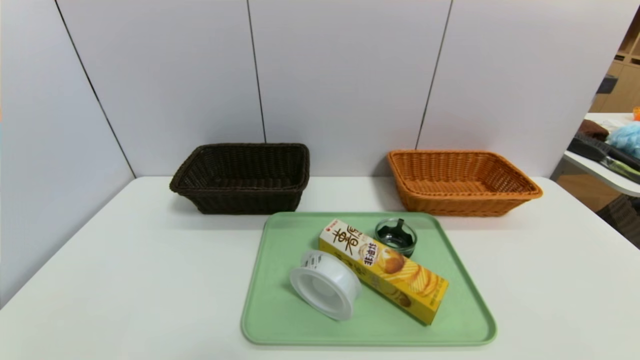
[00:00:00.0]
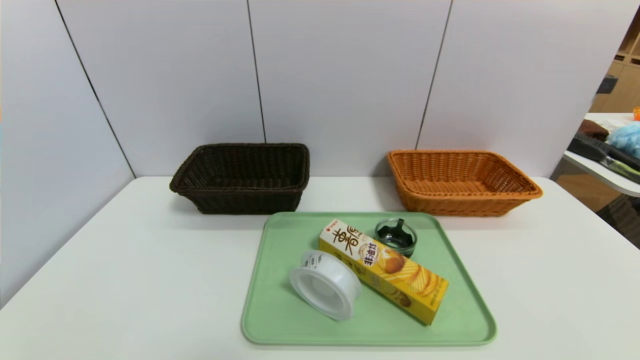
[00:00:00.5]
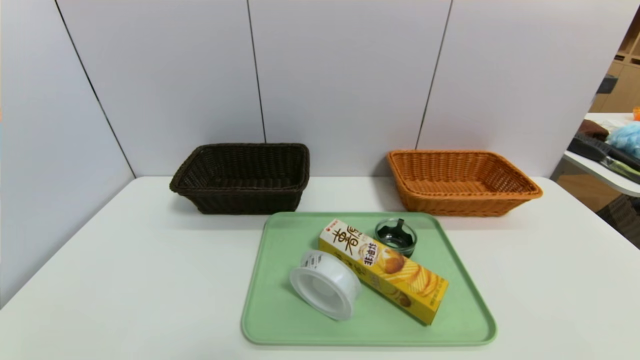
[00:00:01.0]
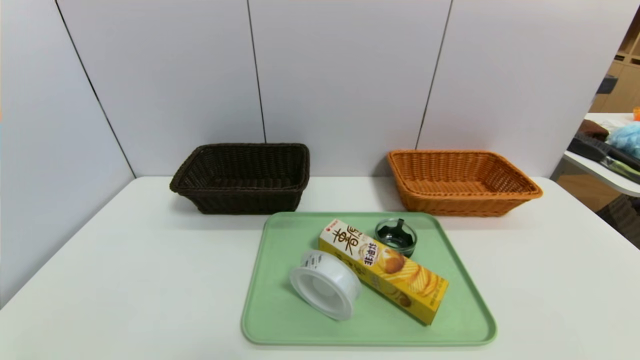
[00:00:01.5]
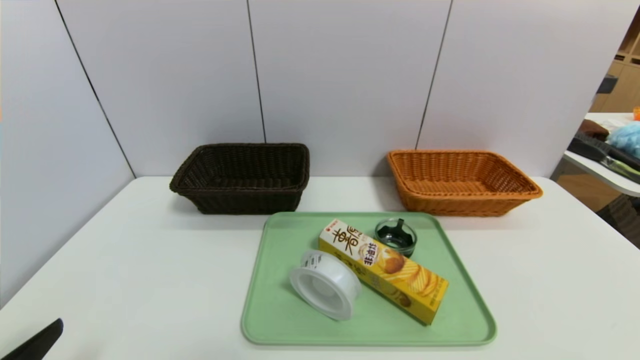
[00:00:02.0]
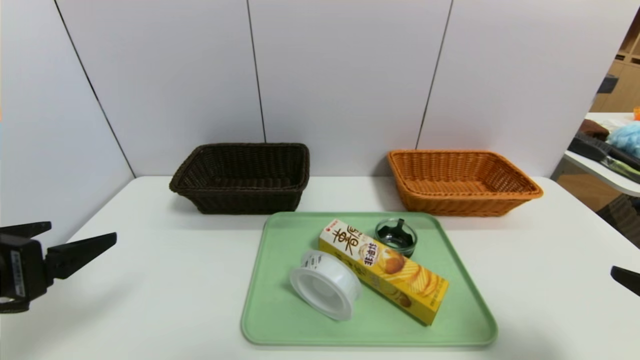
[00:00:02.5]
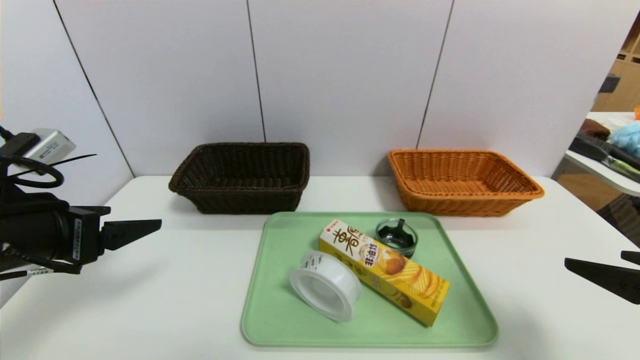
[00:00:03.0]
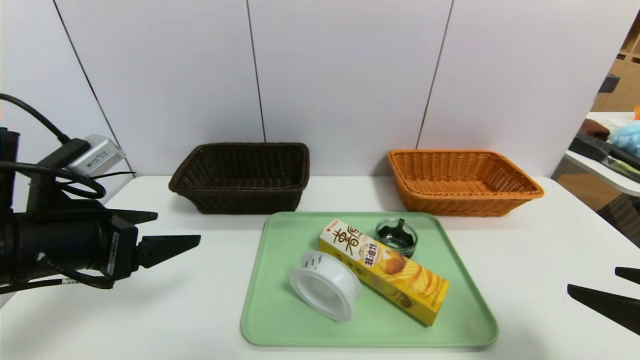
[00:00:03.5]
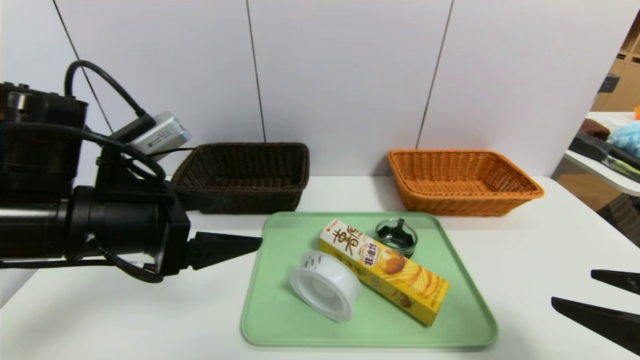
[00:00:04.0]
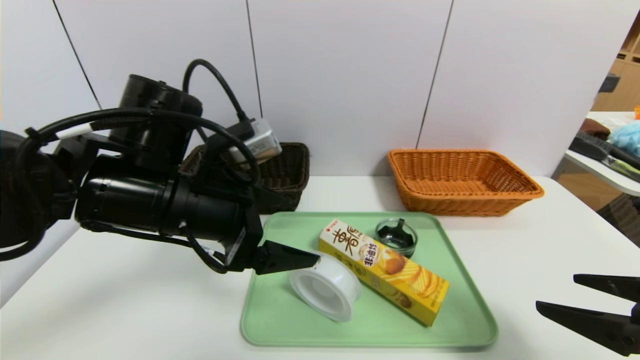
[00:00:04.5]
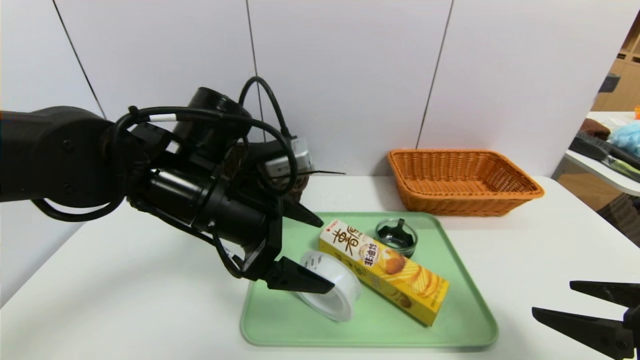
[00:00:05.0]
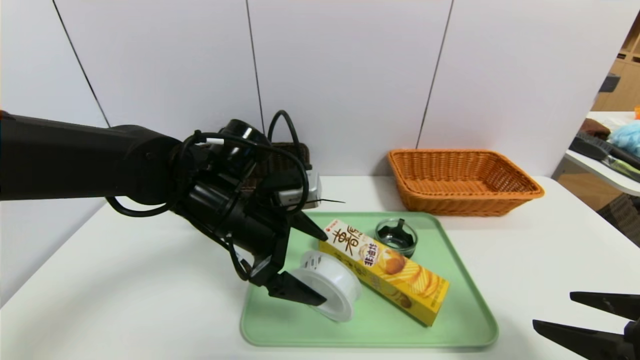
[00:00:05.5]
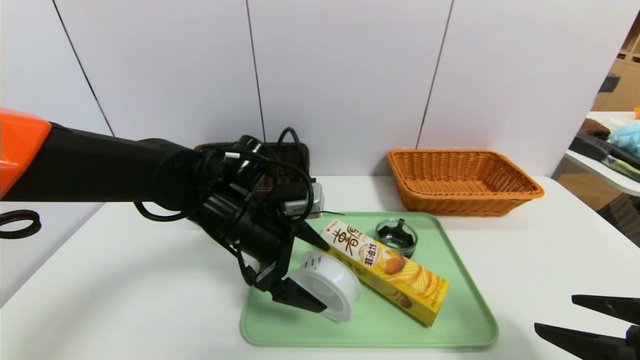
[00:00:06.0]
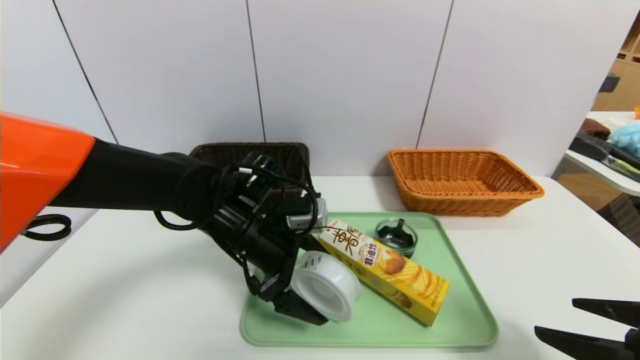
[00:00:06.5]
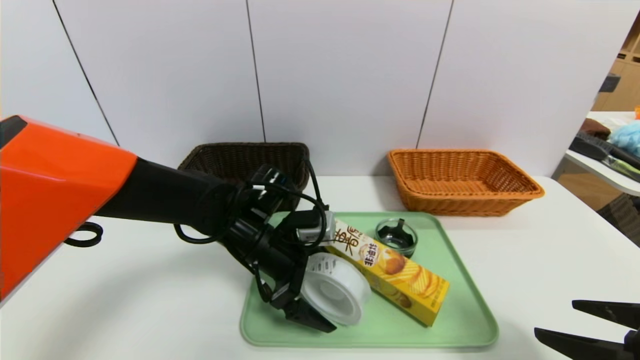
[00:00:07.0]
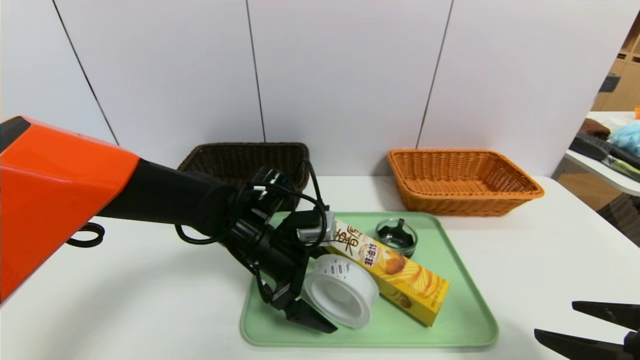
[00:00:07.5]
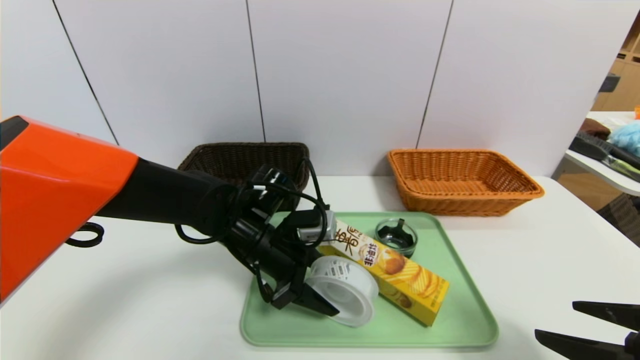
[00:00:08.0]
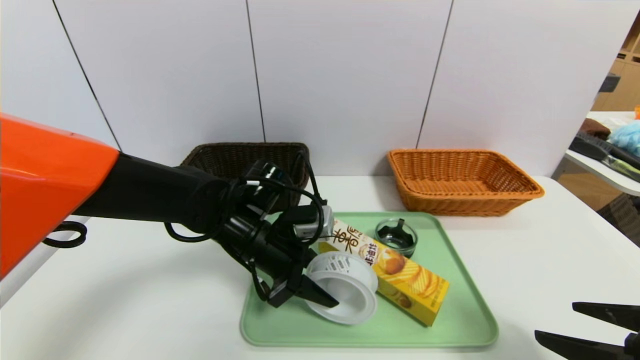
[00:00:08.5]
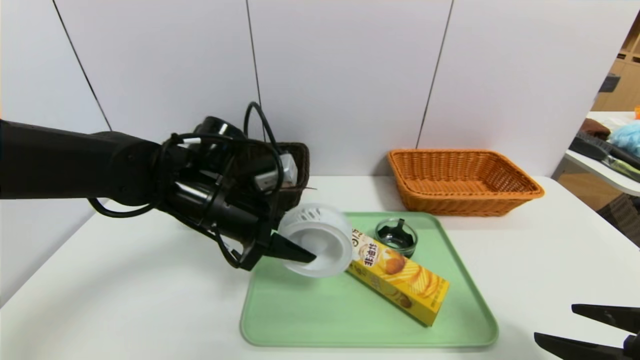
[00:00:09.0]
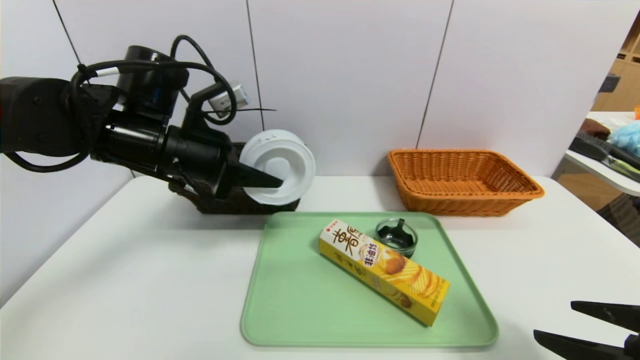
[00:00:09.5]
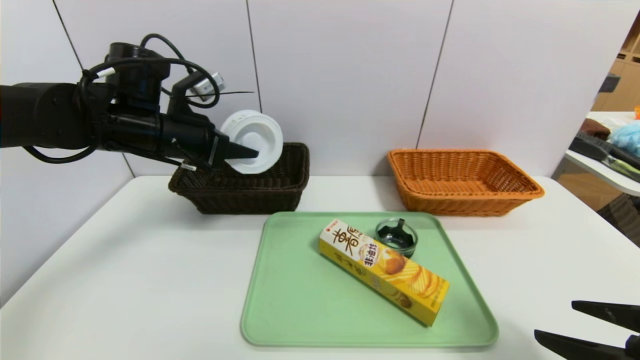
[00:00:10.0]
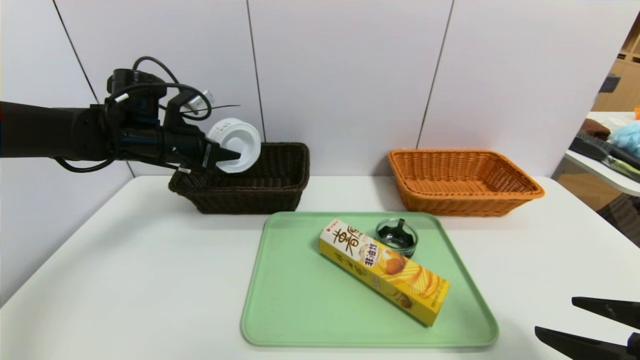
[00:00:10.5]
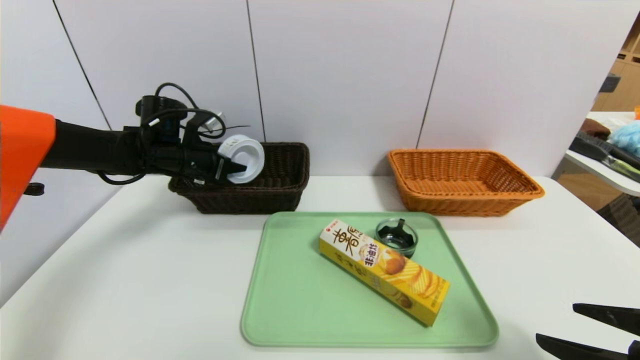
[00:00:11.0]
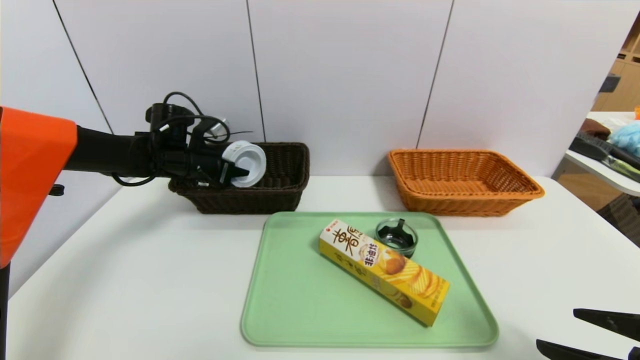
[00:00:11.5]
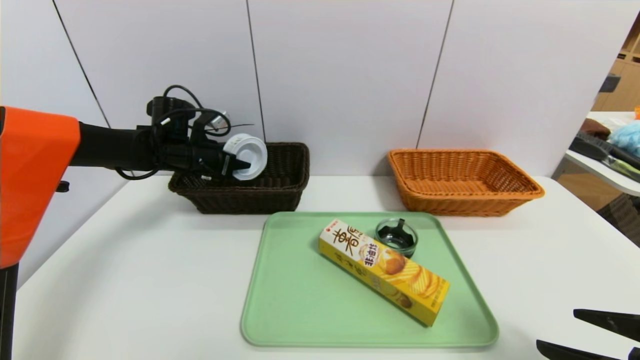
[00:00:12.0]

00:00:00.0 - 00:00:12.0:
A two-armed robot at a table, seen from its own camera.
Task of the whole recording: place the food in the right basket with the right gripper, and place the non food items in the left basket with the left gripper.
00:00:00.0 - 00:00:02.0: The left gripper moves upward, some 10 cm.
00:00:02.0 - 00:00:04.0: The right gripper is displaced forward by approximately 10 cm. Meanwhile the left gripper is displaced forward and to the right by roughly 20 cm.
00:00:04.0 - 00:00:06.0: The left gripper is displaced to the right, forward and downward by approximately 15 cm.
00:00:06.0 - 00:00:08.0: The left gripper ends up some 5 cm from where it was, and closes its fingers.
00:00:08.0 - 00:00:10.0: The left gripper travels to the left and upward by some 20 cm.
00:00:10.0 - 00:00:12.0: The left gripper travels forward and downward by roughly 15 cm.

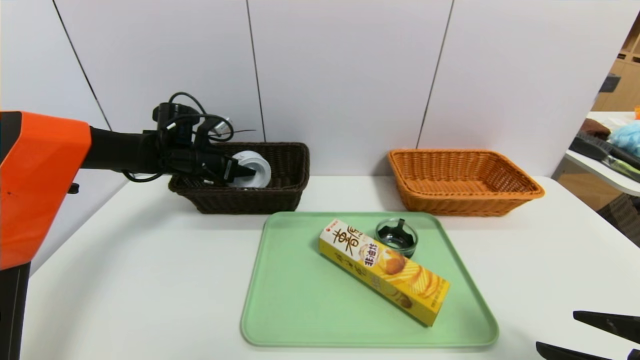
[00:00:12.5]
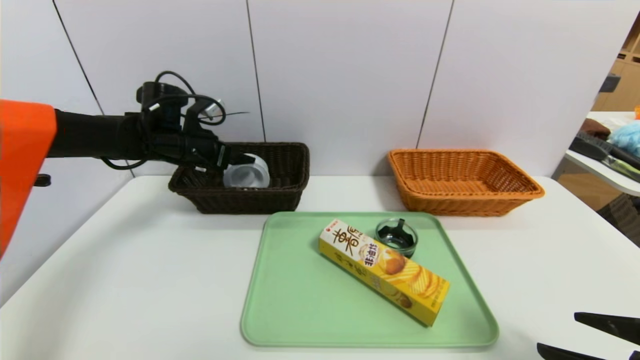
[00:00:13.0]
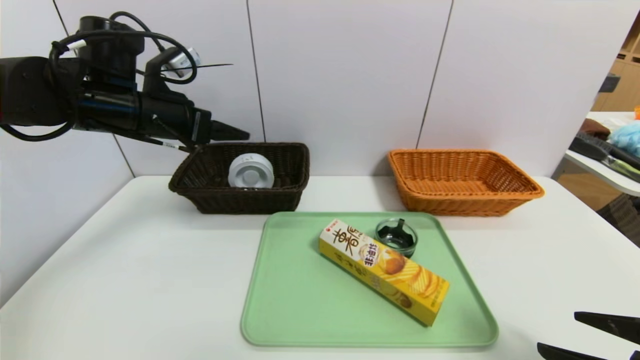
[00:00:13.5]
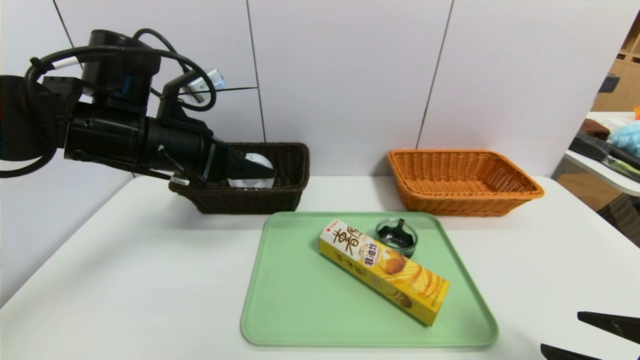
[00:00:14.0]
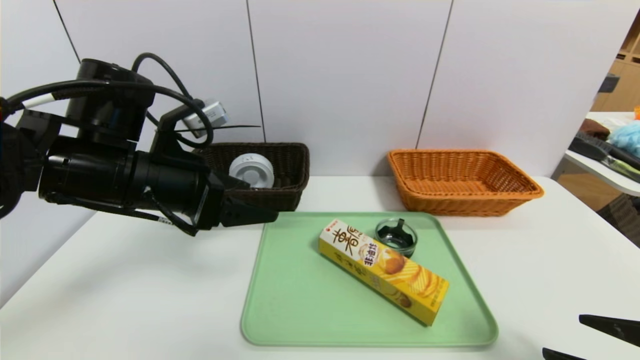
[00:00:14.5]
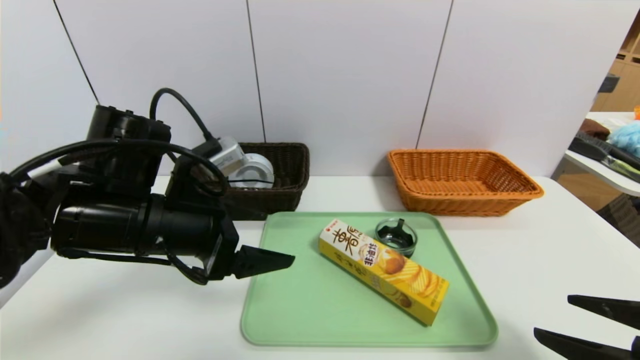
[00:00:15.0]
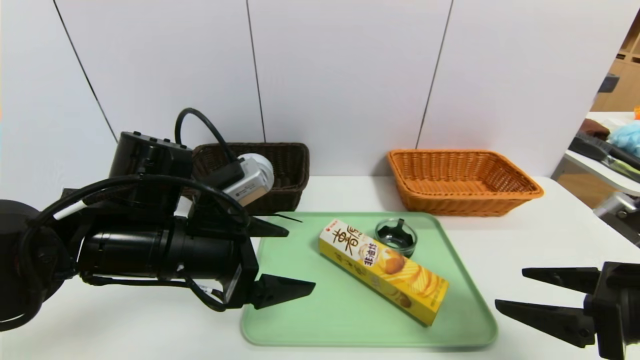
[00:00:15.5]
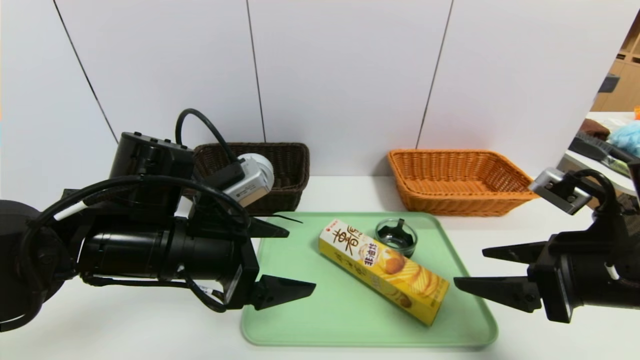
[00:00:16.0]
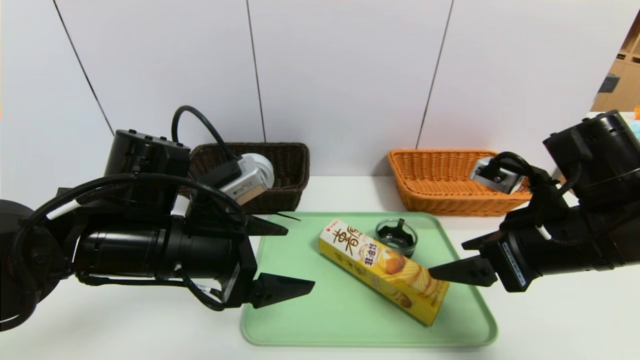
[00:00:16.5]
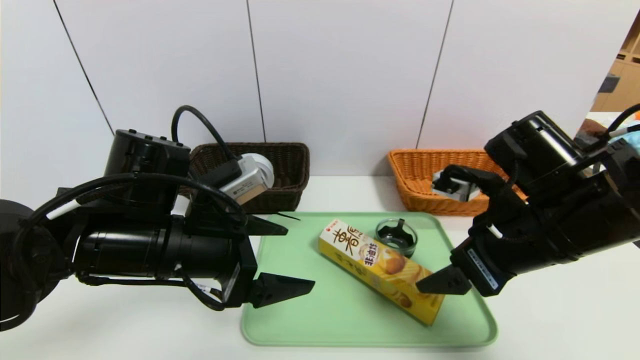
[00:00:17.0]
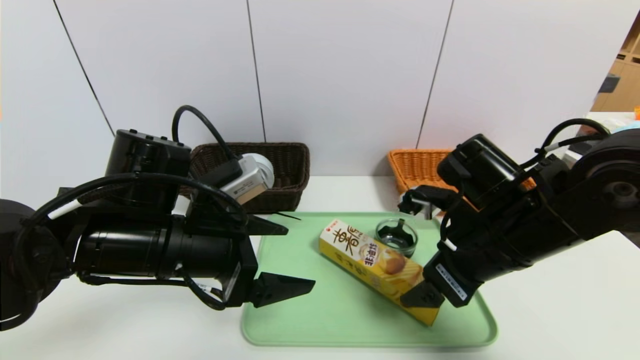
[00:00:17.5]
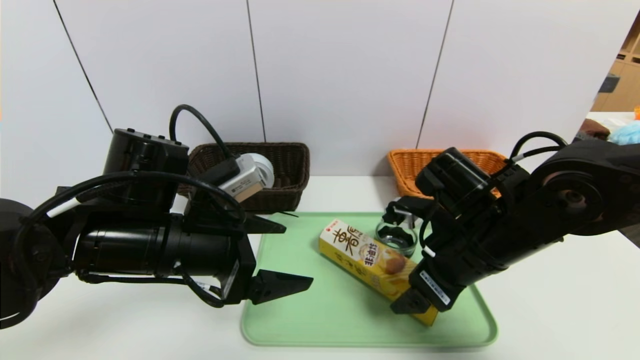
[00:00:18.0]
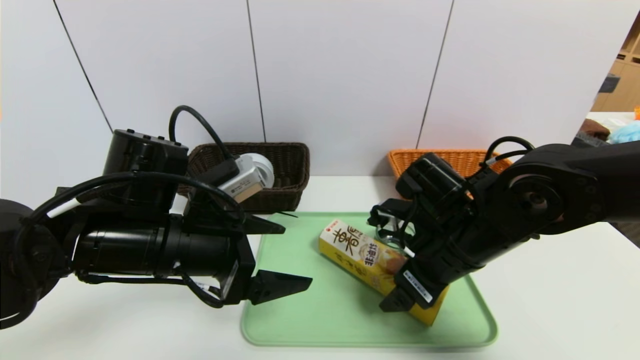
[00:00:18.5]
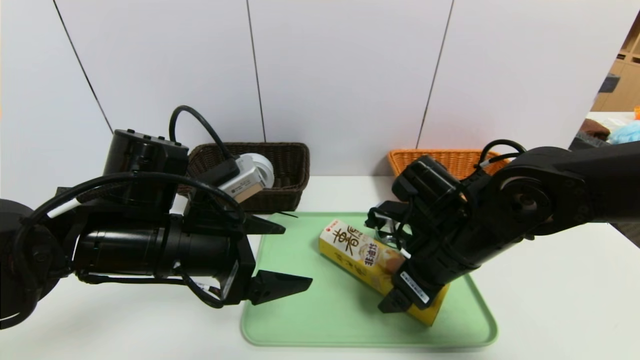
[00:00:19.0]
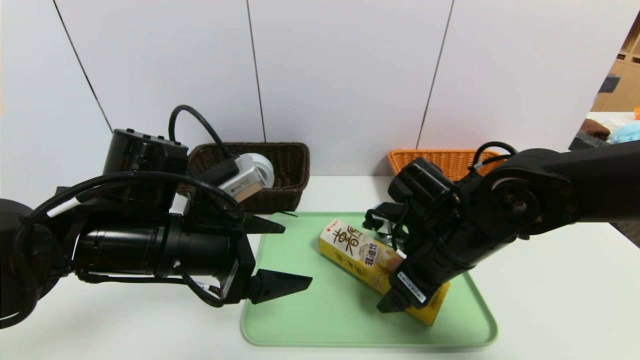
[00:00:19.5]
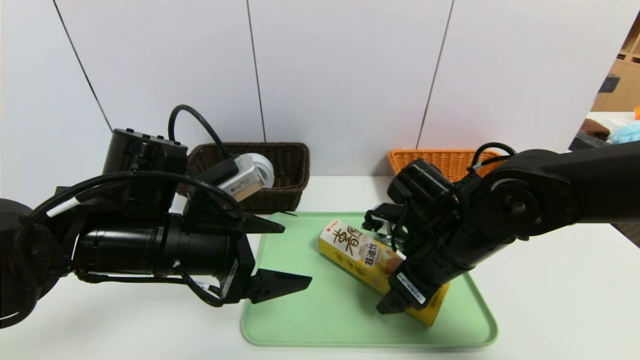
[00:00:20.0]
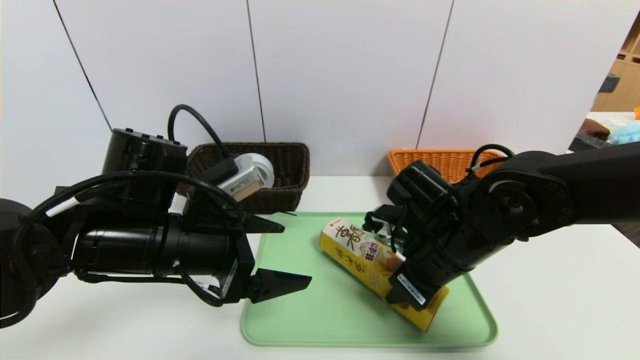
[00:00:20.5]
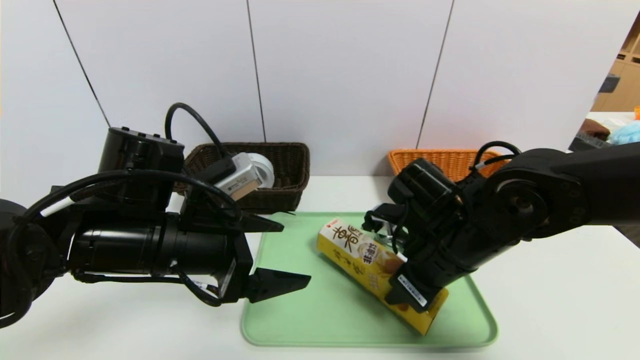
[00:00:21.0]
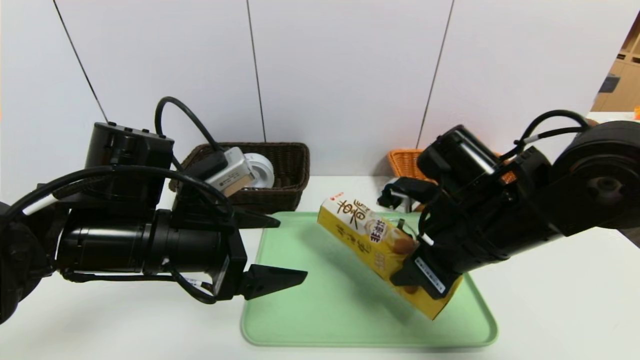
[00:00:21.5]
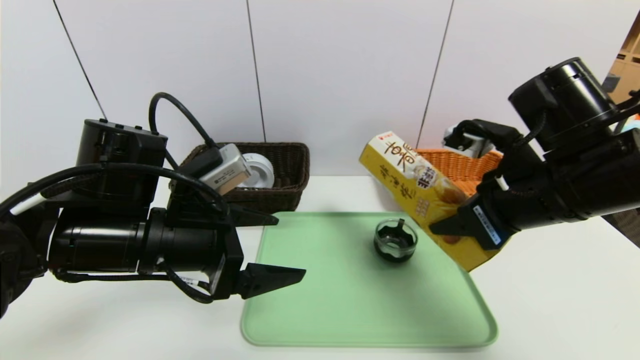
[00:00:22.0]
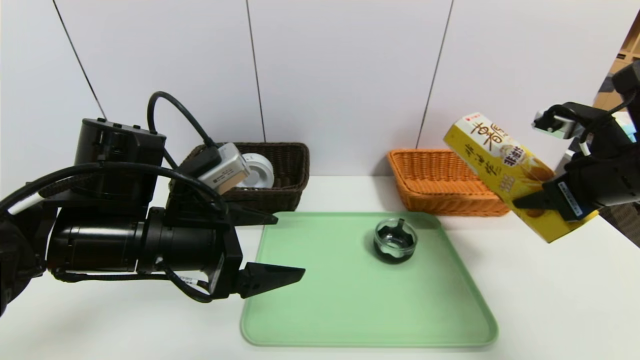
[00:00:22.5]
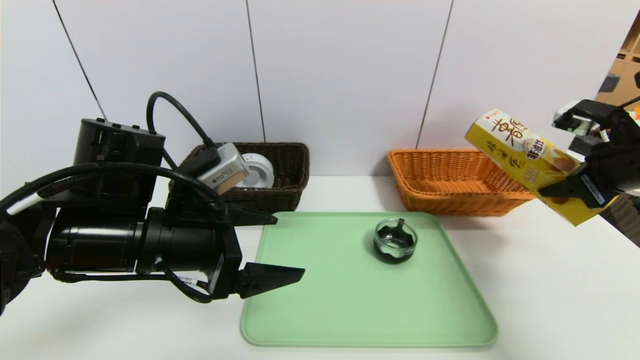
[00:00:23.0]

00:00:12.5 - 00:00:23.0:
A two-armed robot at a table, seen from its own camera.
Task of the whole recording: place the food in the right basket with the right gripper, and place the non food items in the left basket with the left gripper.
00:00:12.5 - 00:00:14.5: The left gripper heads backward and upward, covering about 25 cm.
00:00:14.5 - 00:00:16.5: The right gripper shifts some 15 cm forward, to the left and upward. Meanwhile the left gripper moves some 5 cm.
00:00:16.5 - 00:00:19.0: The right gripper travels to the left and downward by about 10 cm.
00:00:19.0 - 00:00:21.0: The right gripper closes up.
00:00:21.0 - 00:00:23.0: The right gripper goes some 25 cm to the right and upward.
